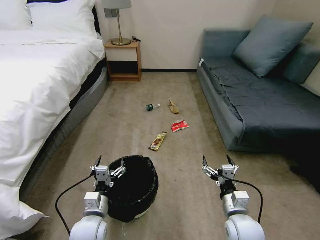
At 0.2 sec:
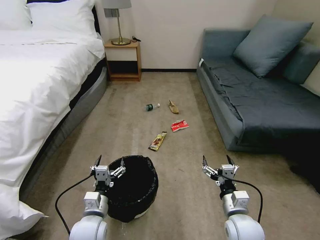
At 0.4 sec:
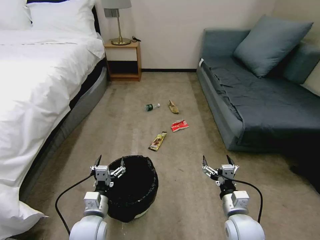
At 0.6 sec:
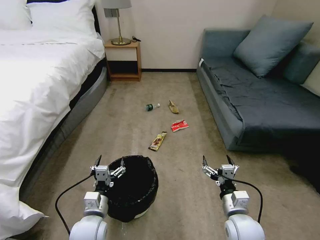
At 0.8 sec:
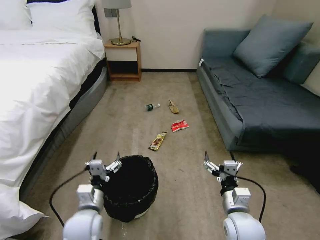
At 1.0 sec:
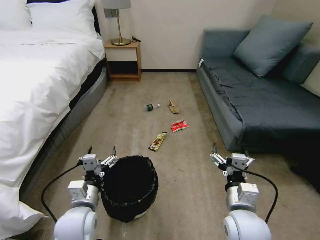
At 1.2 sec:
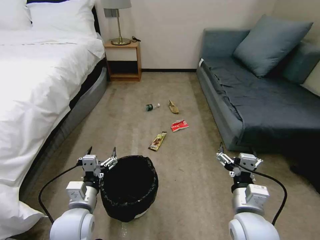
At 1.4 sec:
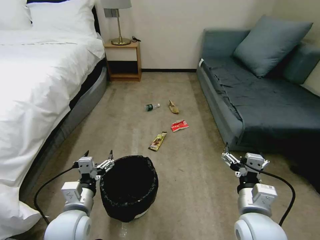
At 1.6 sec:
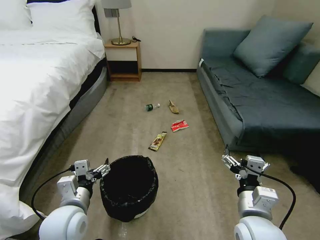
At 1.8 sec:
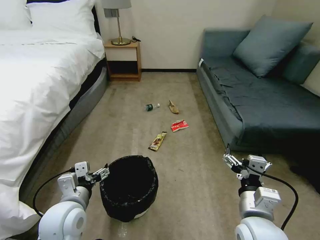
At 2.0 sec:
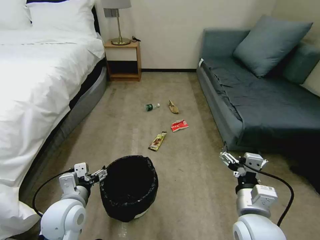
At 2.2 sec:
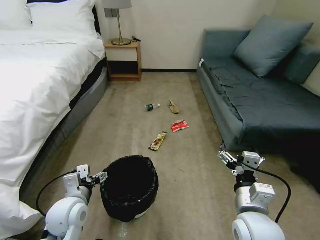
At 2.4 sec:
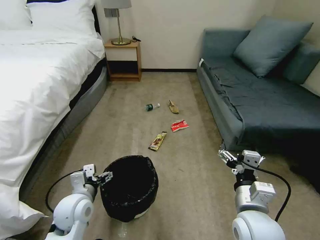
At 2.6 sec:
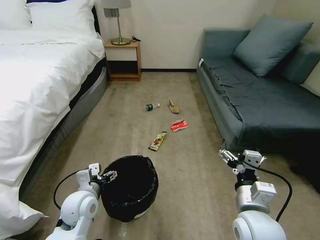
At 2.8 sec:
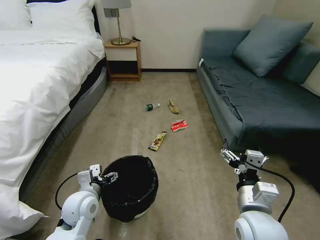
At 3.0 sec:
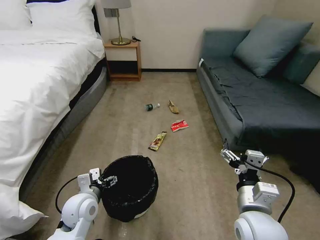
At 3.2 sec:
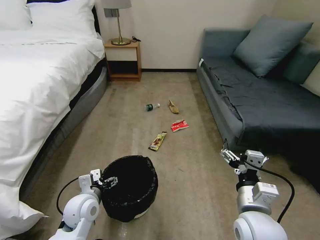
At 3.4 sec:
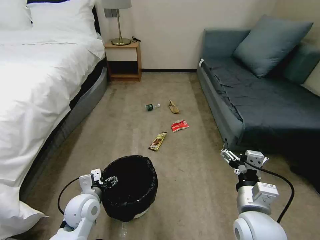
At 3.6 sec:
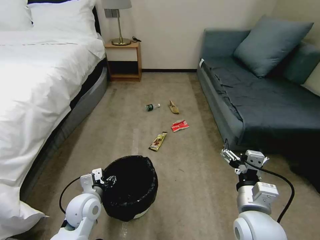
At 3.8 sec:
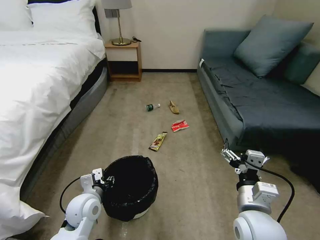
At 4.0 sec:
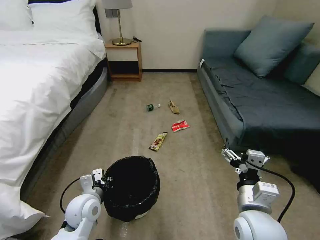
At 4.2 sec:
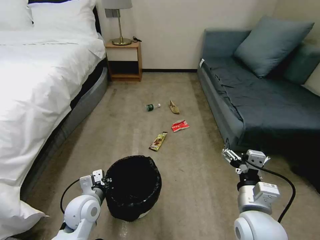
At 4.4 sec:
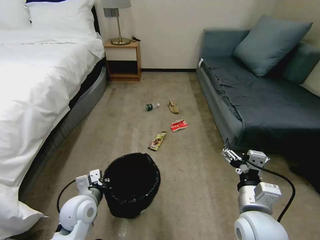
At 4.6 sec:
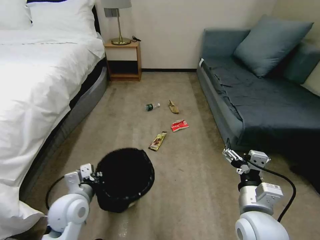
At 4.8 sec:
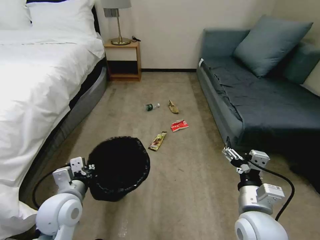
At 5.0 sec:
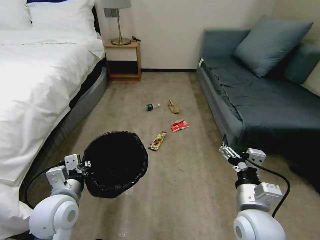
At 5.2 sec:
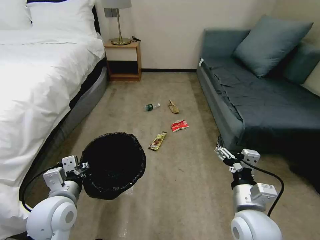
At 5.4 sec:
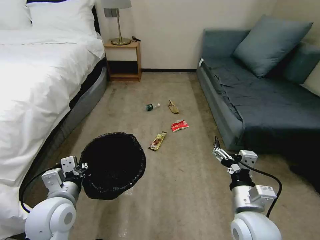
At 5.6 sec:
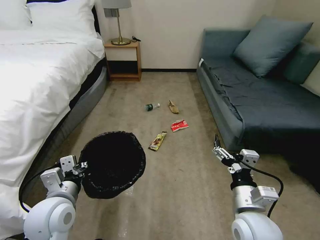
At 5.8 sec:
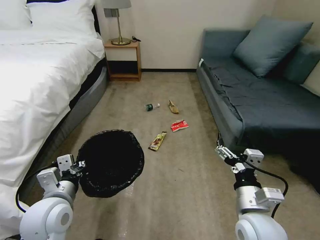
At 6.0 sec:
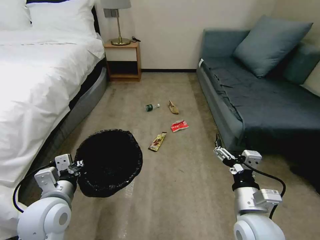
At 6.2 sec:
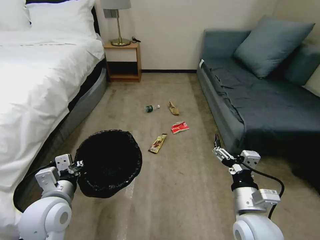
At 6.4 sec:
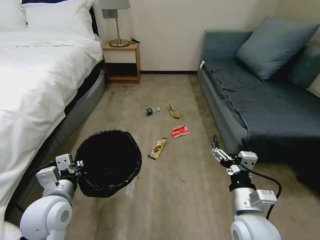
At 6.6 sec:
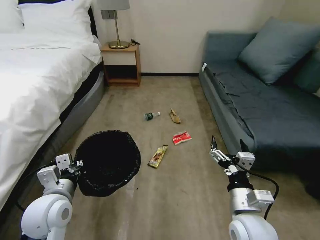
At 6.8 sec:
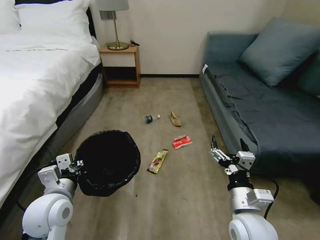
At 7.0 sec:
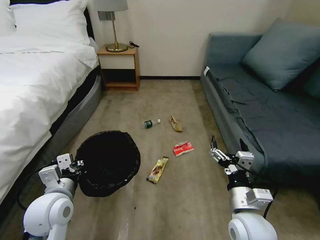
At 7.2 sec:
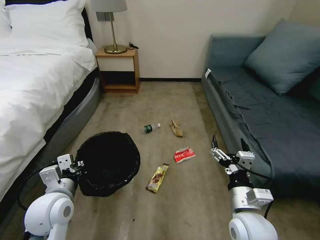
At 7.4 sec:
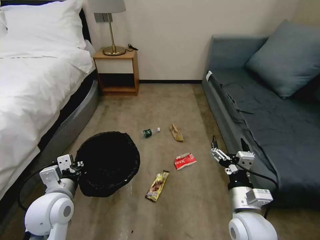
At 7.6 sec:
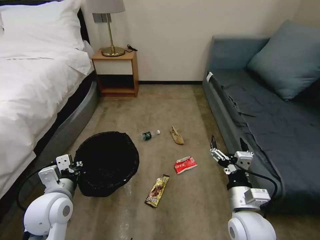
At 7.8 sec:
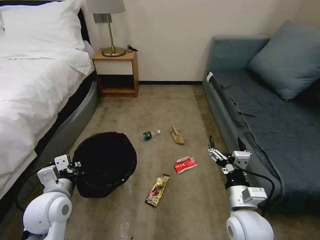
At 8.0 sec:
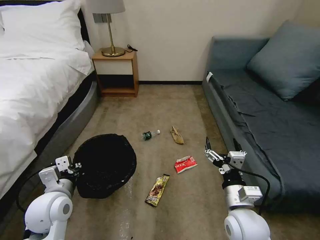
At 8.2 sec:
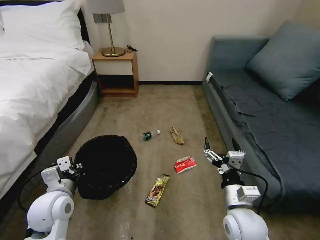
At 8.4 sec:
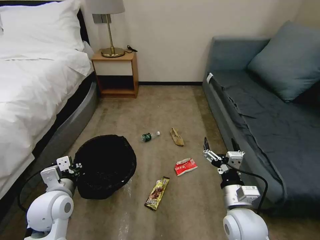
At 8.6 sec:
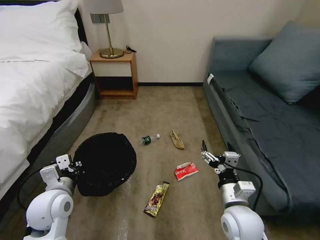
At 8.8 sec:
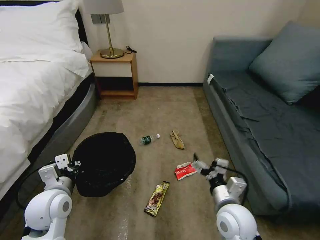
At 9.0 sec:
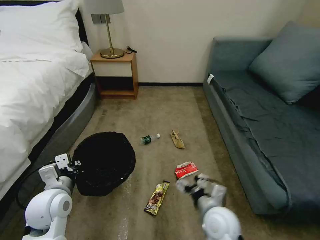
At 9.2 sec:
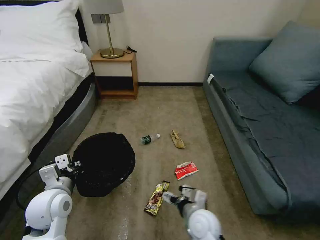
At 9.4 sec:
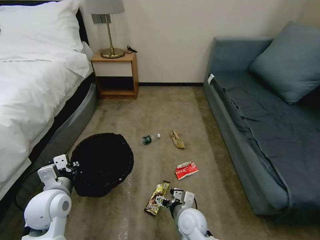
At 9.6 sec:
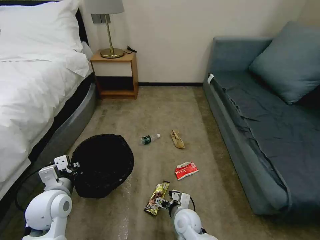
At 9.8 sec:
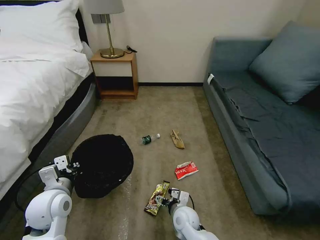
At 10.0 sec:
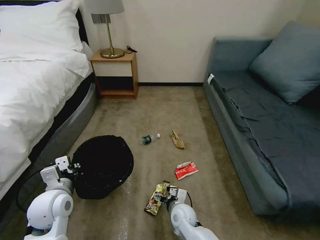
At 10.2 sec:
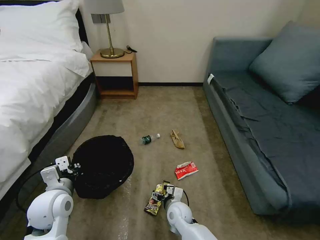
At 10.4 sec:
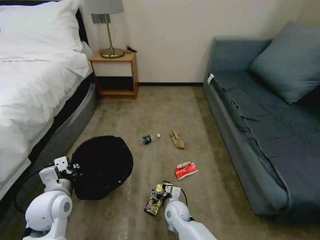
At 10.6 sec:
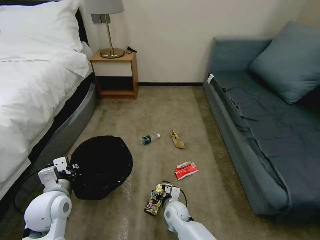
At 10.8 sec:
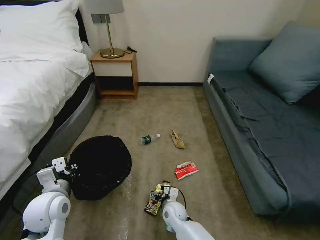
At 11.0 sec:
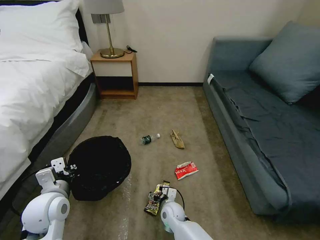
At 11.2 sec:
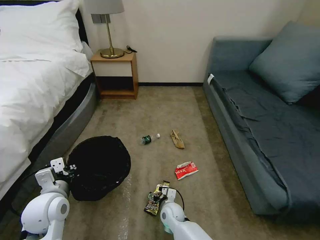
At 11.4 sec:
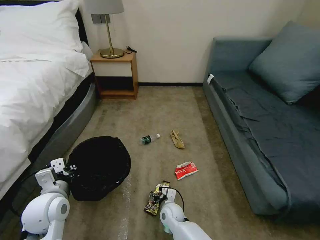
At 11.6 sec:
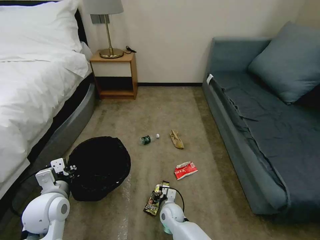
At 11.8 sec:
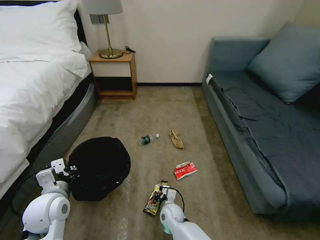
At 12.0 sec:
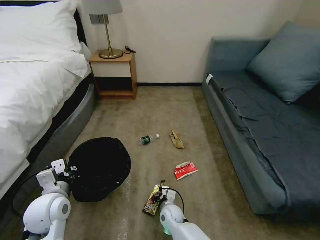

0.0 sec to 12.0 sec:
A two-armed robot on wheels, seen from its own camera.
Task of the whole recording: Pick up the trash bin, then pick up the garbage on the floor and place it into the trash bin.
1.6 sec to 3.0 sec: The left gripper goes approximately 10 cm downward and forward.
3.0 sec to 4.4 sec: The left gripper closes up.
4.4 sec to 6.0 sec: The left gripper travels upward by some 10 cm.
7.6 sec to 9.0 sec: The right gripper heads downward and to the left, covering about 10 cm.
9.0 sec to 10.4 sec: The right gripper moves downward, to the left and forward, approximately 20 cm.
10.4 sec to 12.0 sec: The right gripper closes its fingers.

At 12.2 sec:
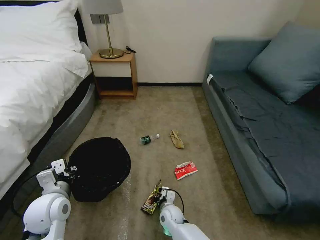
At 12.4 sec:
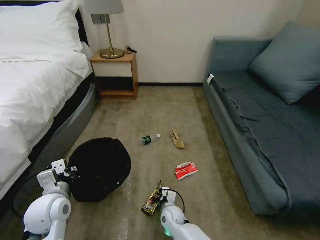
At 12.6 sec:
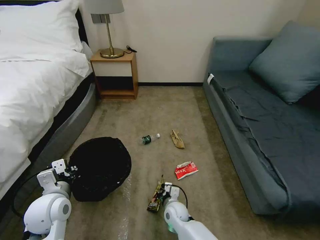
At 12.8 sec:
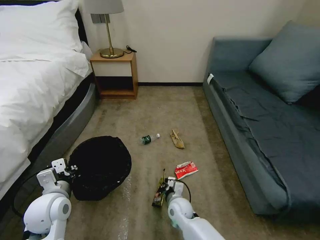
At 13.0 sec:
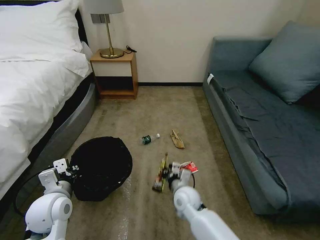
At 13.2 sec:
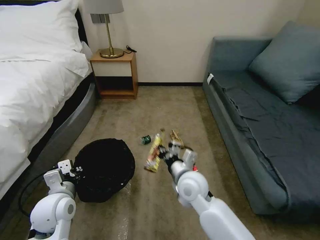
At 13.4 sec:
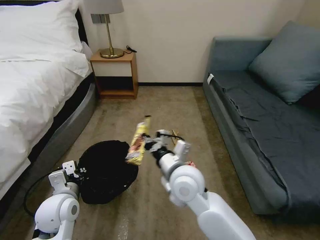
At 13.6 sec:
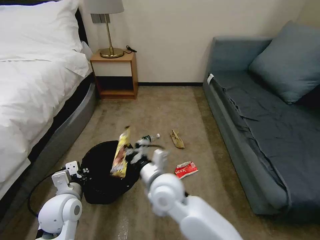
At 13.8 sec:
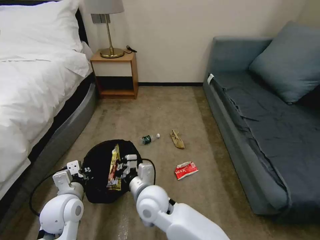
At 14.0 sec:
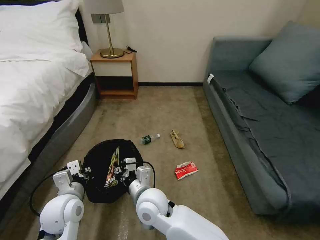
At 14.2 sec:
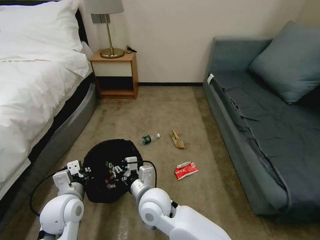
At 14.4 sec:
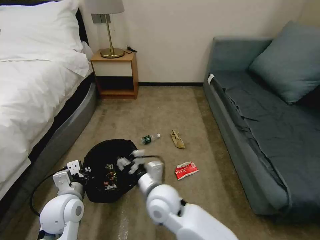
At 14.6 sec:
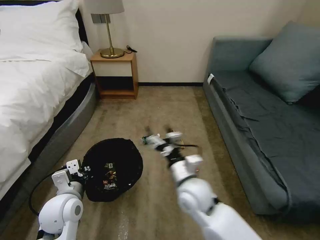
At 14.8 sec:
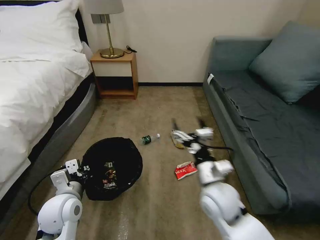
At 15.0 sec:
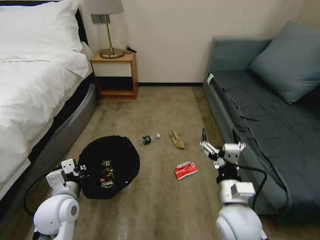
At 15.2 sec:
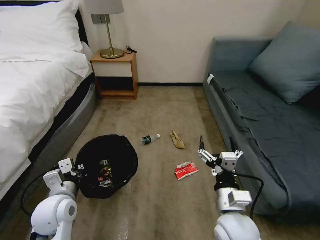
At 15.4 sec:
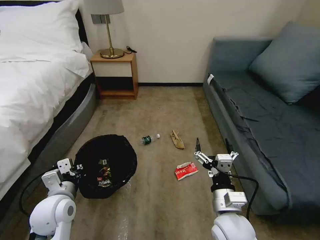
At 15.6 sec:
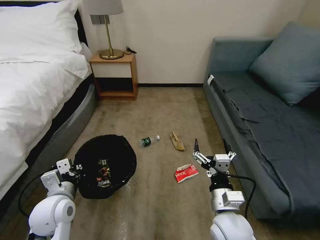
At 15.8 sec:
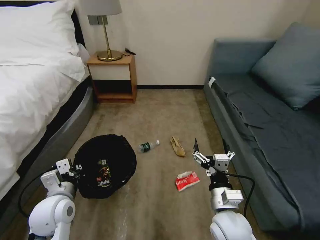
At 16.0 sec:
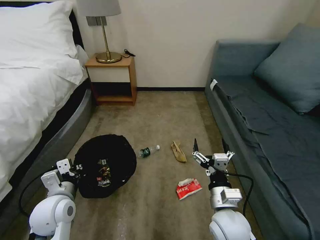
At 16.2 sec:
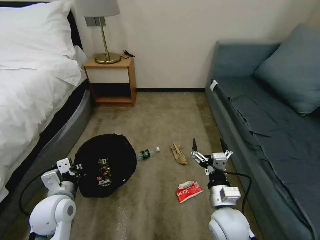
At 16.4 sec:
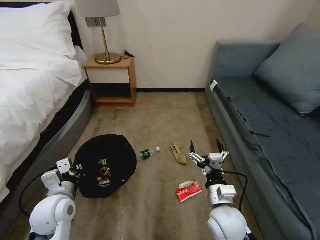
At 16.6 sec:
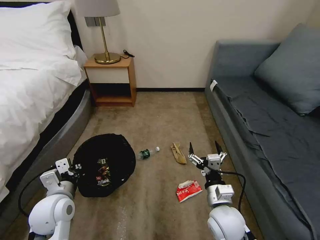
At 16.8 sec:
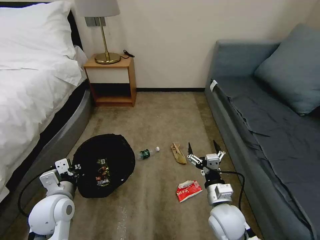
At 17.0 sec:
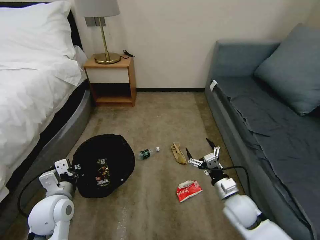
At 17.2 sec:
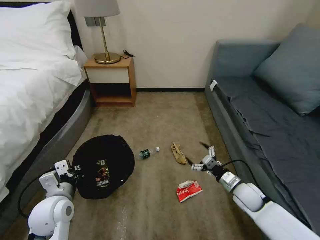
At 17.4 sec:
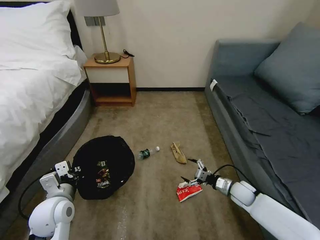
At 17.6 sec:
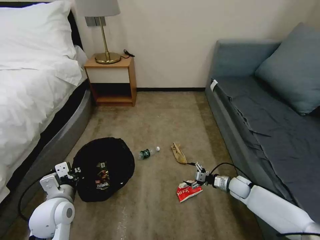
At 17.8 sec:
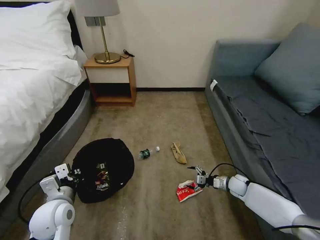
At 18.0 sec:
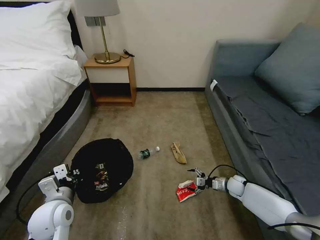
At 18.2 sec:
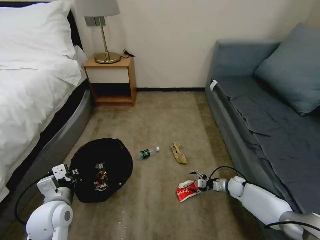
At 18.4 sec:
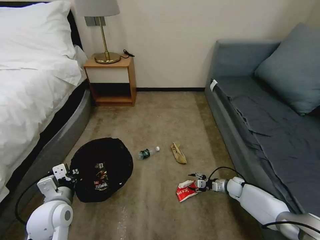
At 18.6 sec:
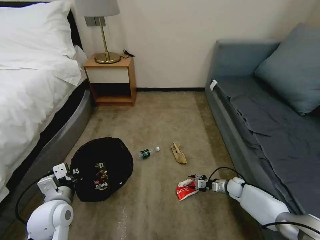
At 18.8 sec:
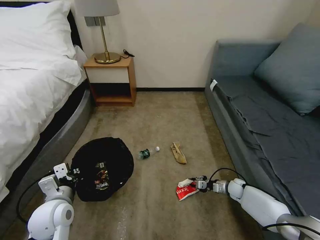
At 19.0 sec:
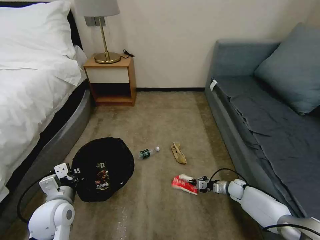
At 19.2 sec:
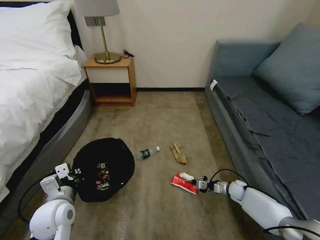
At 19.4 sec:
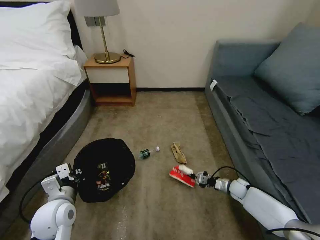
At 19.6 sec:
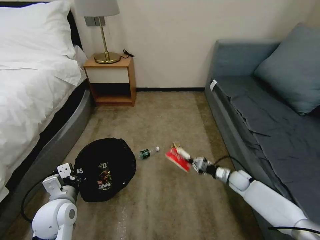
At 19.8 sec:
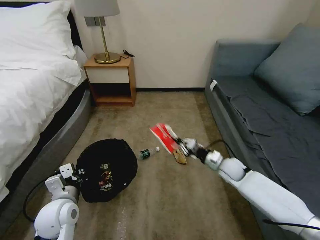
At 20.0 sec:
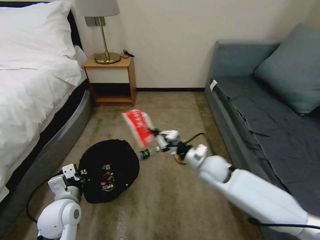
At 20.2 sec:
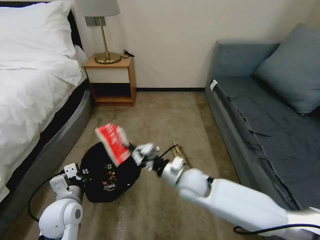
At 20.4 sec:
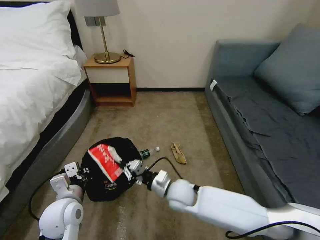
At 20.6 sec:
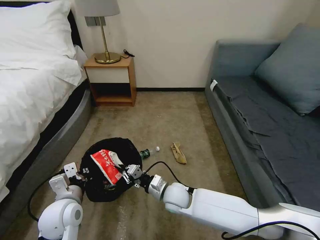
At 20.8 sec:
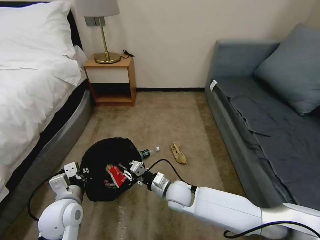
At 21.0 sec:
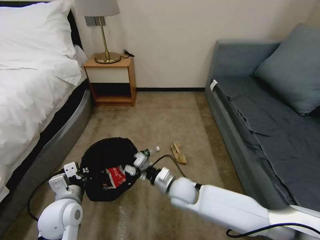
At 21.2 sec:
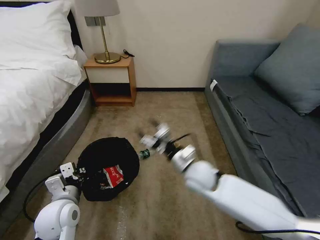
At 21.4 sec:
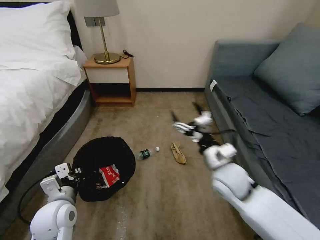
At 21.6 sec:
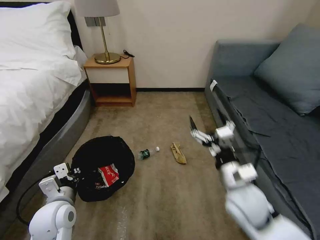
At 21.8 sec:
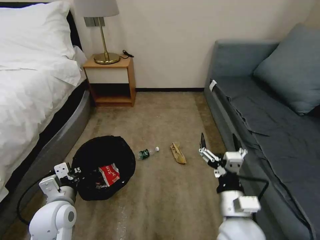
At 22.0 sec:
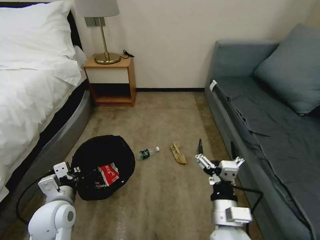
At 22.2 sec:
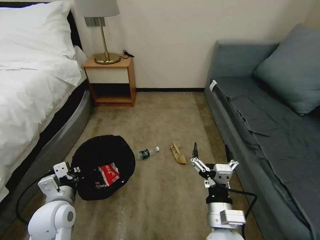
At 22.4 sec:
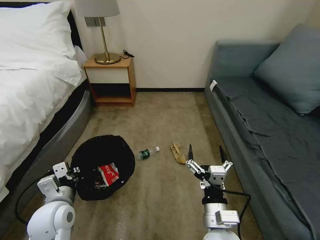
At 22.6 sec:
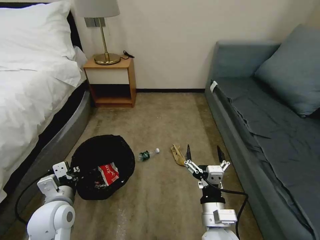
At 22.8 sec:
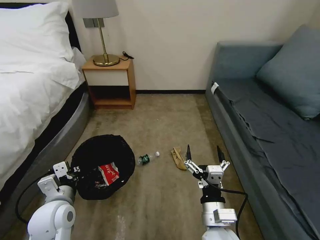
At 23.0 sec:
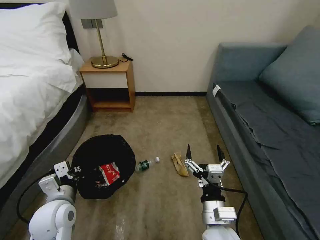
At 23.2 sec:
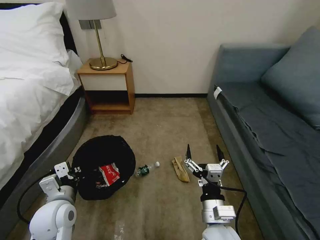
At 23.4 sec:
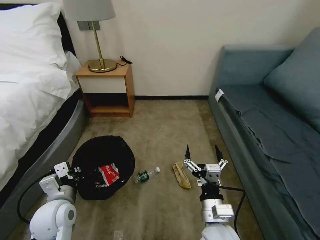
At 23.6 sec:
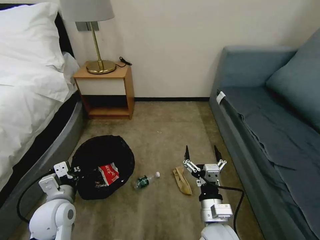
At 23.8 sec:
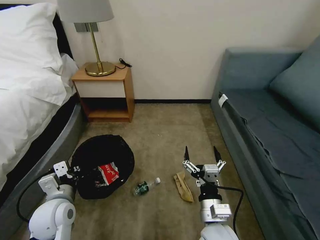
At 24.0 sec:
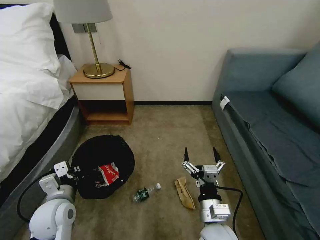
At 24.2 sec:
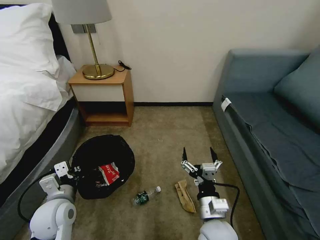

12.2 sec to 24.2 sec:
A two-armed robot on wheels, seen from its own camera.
Task of the whole recording: Pick up the trash bin, then pick up the garbage on the floor and place it into the trash bin.
12.2 sec to 13.8 sec: The right gripper heads upward, covering some 30 cm.
13.8 sec to 15.2 sec: The right gripper goes about 20 cm to the right, and opens its fingers.
16.6 sec to 18.2 sec: The right gripper shifts approximately 30 cm forward, to the right and downward.
18.2 sec to 19.8 sec: The right gripper moves upward, roughly 10 cm, and closes.
19.8 sec to 21.2 sec: The right gripper travels to the left, upward and backward by approximately 25 cm, and opens its fingers.
21.2 sec to 22.6 sec: The right gripper heads backward, covering some 20 cm.
